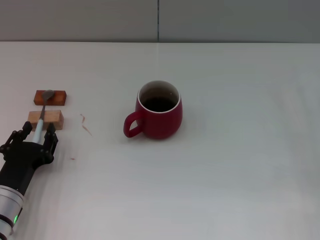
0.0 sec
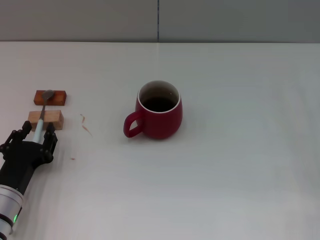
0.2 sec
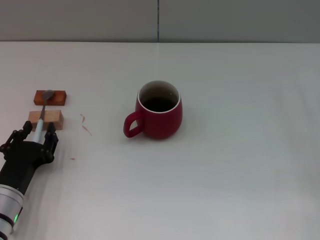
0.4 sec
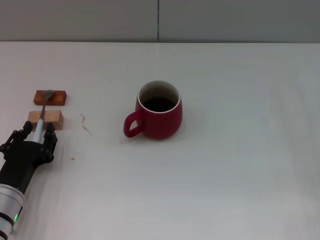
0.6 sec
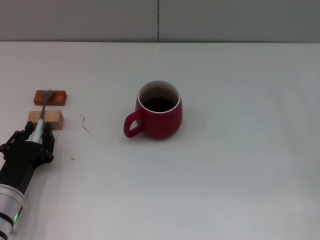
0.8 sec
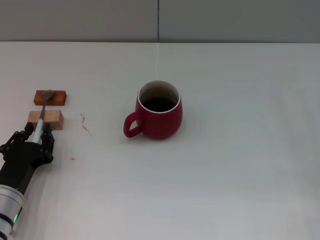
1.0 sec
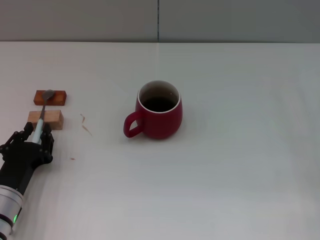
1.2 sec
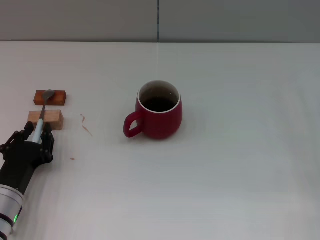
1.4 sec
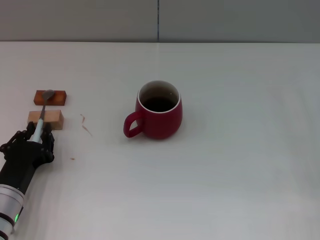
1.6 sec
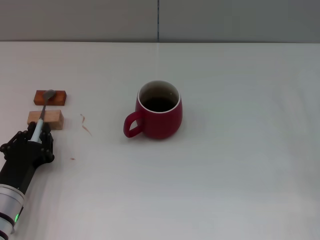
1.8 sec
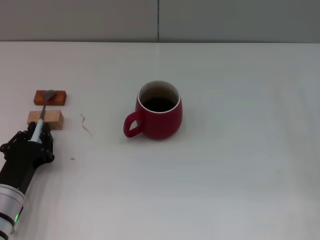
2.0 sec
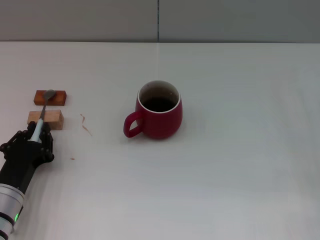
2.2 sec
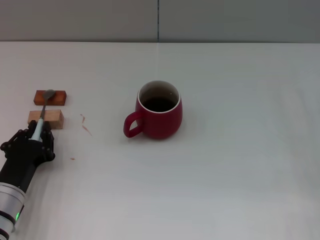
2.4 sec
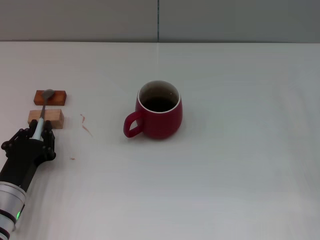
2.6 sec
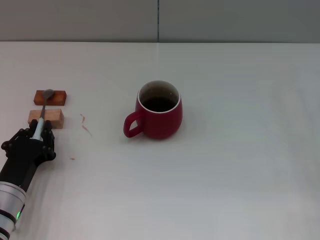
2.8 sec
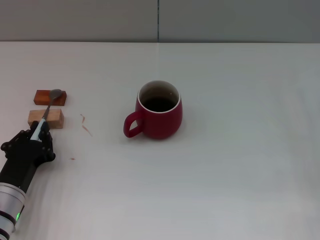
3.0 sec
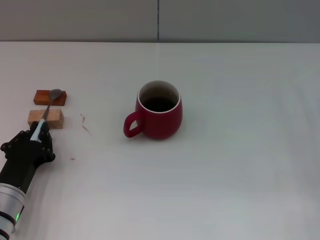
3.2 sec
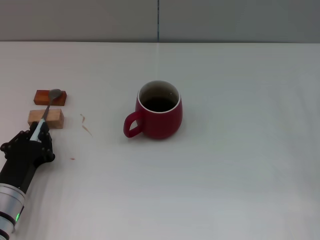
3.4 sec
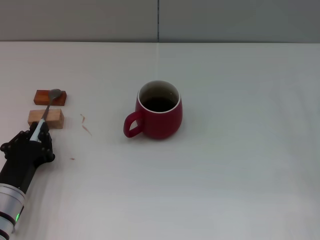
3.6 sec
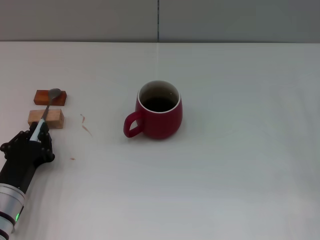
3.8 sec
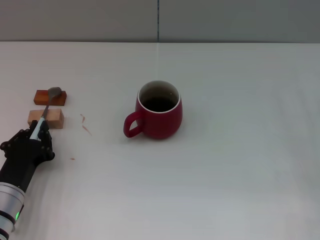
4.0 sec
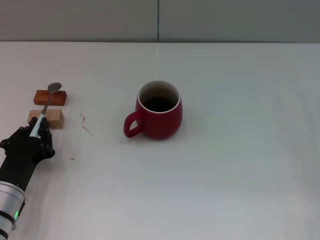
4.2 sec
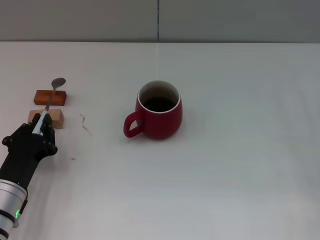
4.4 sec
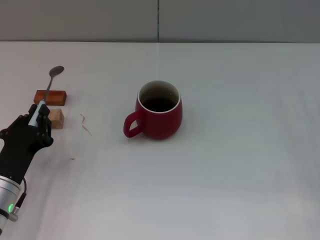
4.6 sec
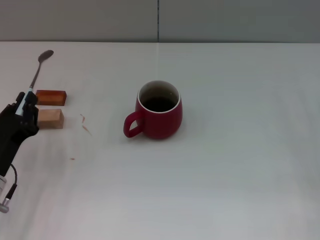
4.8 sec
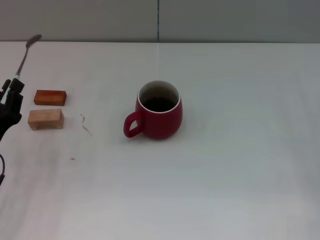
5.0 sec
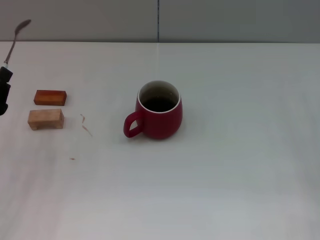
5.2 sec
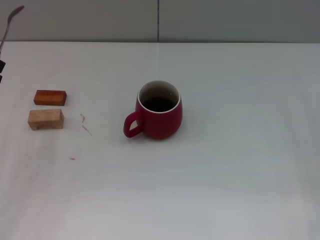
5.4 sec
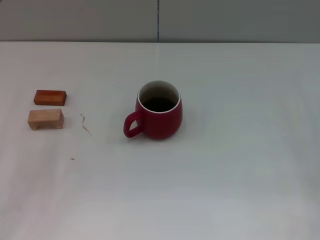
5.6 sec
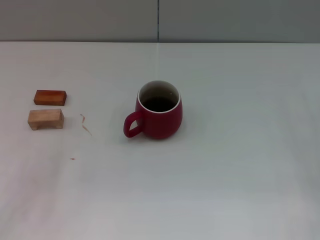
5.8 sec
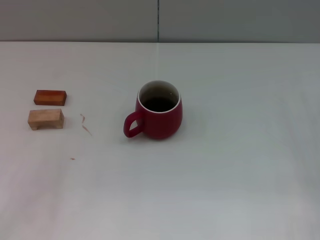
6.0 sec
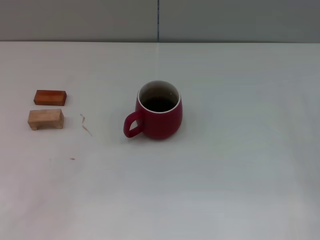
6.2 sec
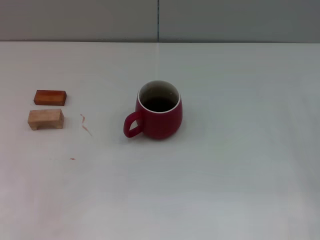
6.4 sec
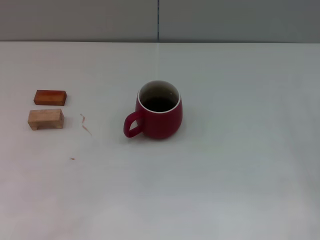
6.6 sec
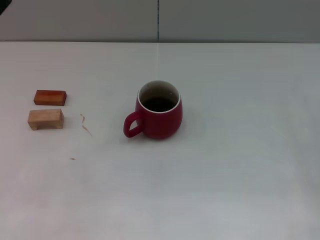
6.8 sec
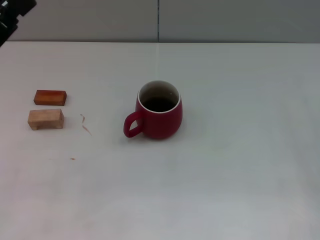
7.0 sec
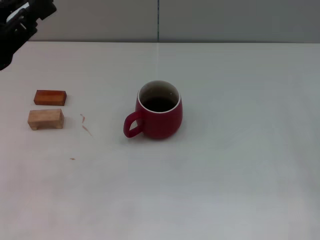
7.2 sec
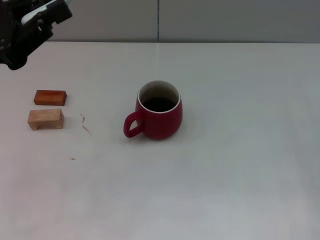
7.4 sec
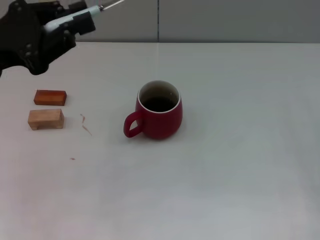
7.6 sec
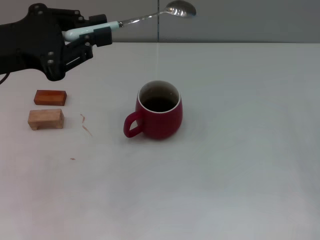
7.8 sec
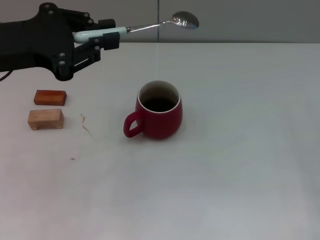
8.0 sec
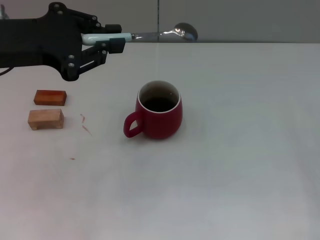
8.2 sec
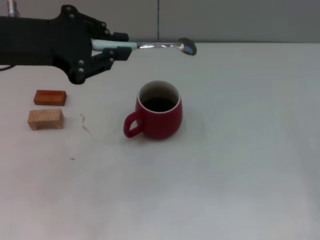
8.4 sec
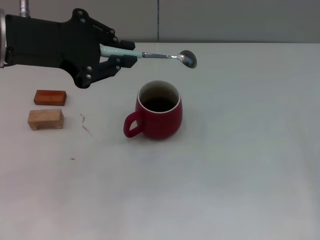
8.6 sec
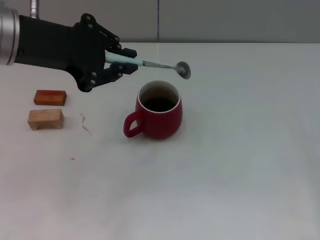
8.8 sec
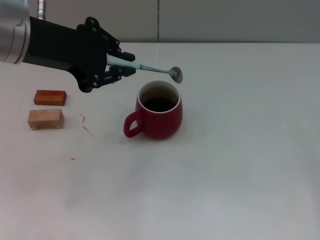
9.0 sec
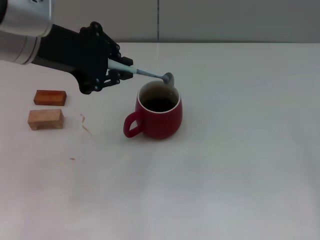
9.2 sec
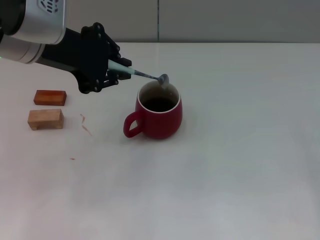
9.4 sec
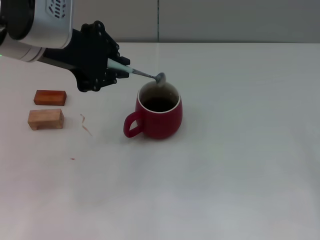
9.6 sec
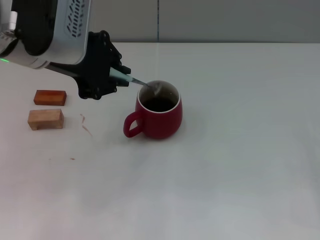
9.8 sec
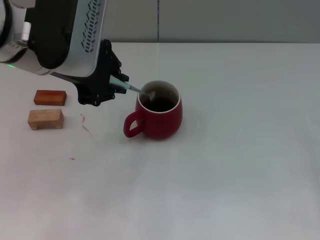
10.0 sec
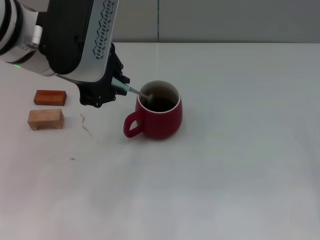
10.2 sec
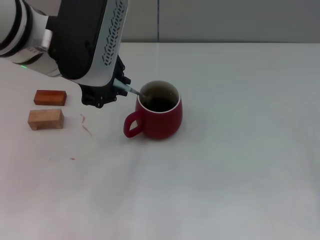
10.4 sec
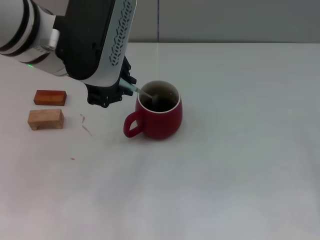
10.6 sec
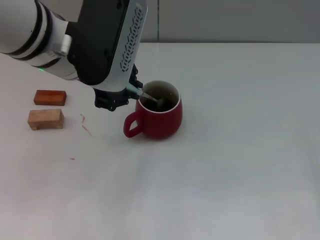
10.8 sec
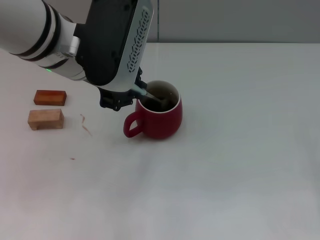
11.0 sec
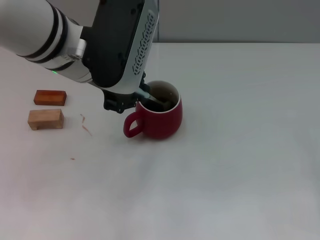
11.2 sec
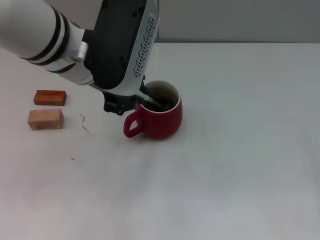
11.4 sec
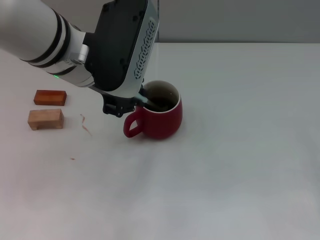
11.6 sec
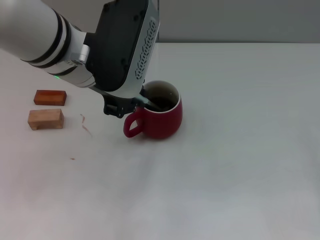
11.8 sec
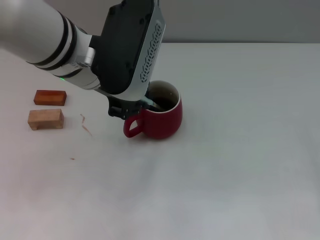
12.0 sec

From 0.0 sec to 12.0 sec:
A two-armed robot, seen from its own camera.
Task of the whole recording: Move the red cup to the center, lift the blue spoon, stir it three times in the cup, and put the spoon into the cup.
Step, from 0.0 sec to 4.6 sec: Pick up the spoon with the left gripper.
From 0.0 sec to 3.0 sec: Both grippers stay put.
From 3.0 sec to 4.4 sec: The grippers make only small movements.
From 4.4 sec to 6.0 sec: The left gripper travels upward and to the left by roughly 10 cm.
From 6.0 sec to 7.6 sec: The left gripper goes roughly 15 cm upward and forward.
From 7.6 sec to 9.0 sec: The left gripper heads to the right, covering some 10 cm.
From 9.0 sec to 10.4 sec: The left gripper travels to the right by approximately 5 cm.
From 10.4 sec to 12.0 sec: The grippers move only a little.

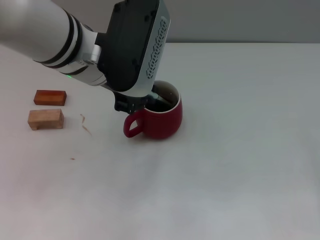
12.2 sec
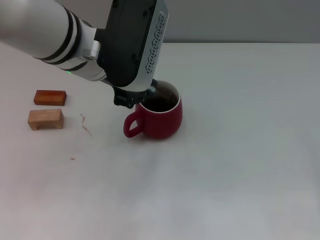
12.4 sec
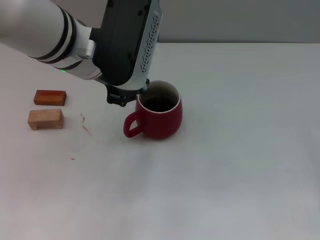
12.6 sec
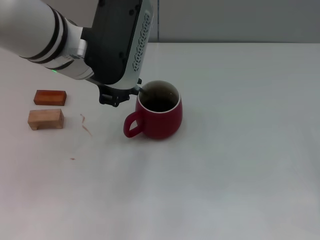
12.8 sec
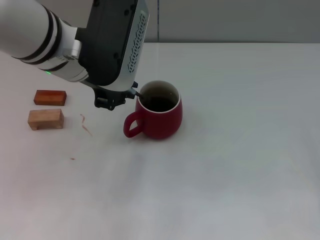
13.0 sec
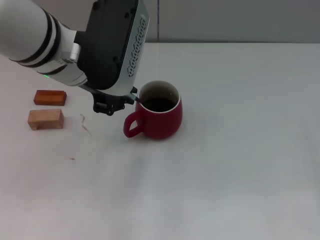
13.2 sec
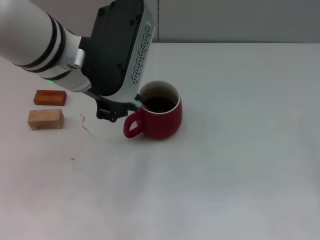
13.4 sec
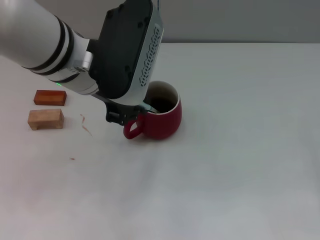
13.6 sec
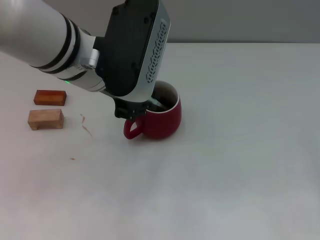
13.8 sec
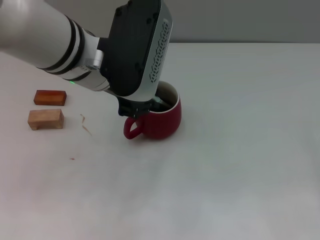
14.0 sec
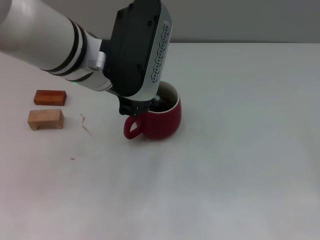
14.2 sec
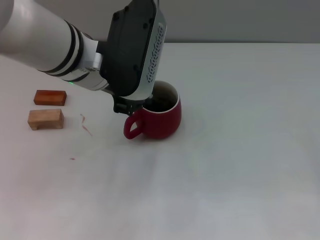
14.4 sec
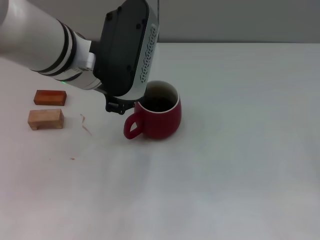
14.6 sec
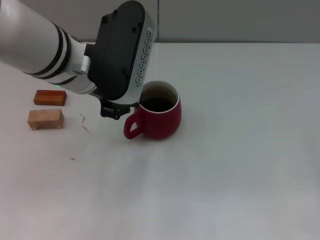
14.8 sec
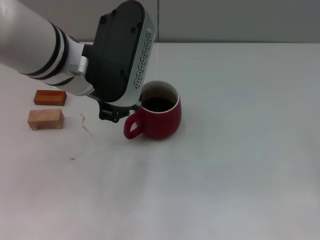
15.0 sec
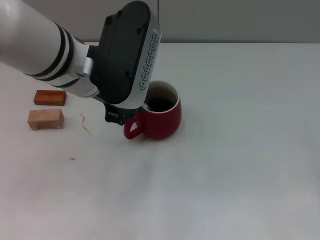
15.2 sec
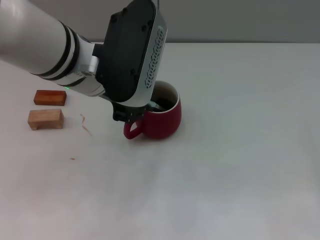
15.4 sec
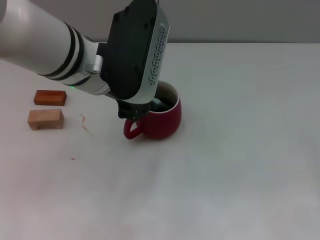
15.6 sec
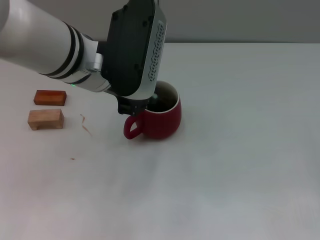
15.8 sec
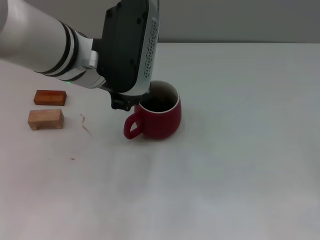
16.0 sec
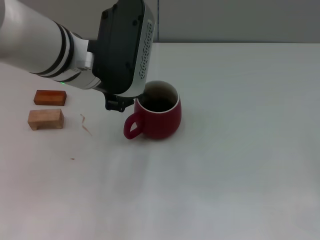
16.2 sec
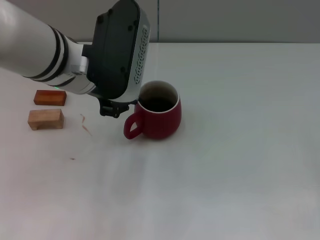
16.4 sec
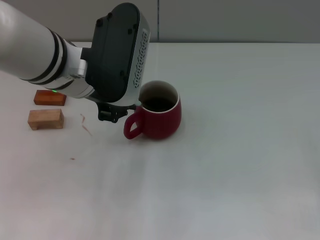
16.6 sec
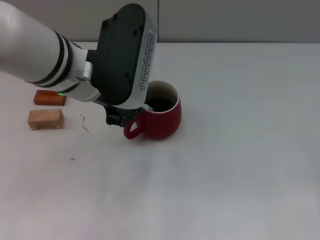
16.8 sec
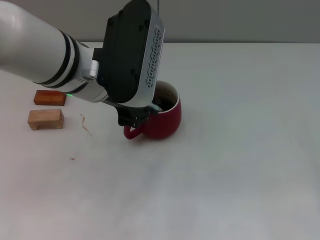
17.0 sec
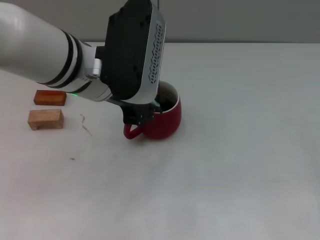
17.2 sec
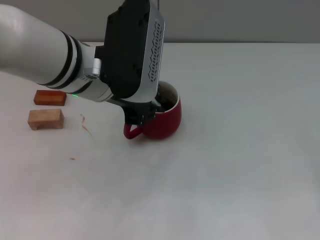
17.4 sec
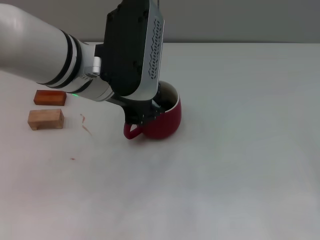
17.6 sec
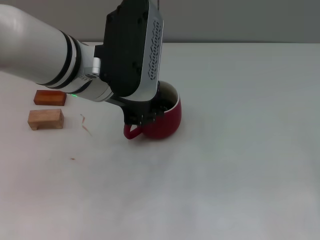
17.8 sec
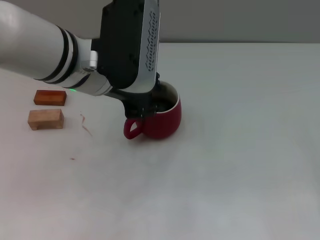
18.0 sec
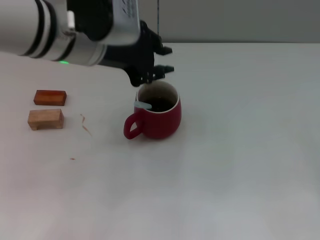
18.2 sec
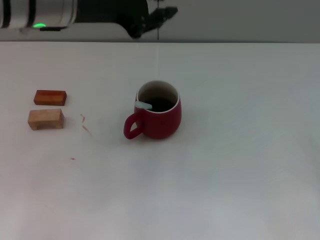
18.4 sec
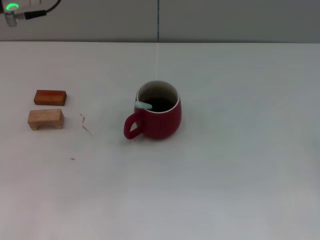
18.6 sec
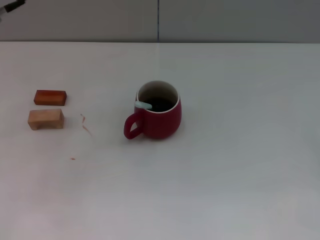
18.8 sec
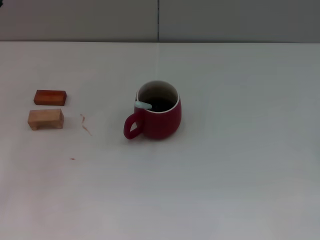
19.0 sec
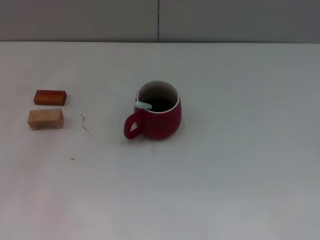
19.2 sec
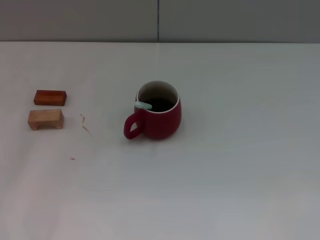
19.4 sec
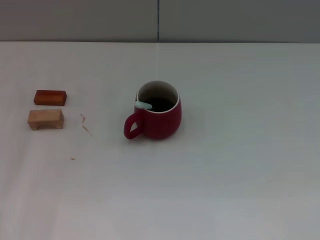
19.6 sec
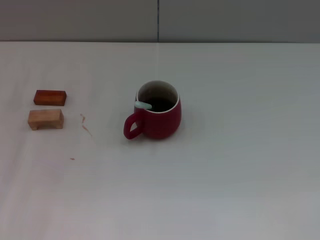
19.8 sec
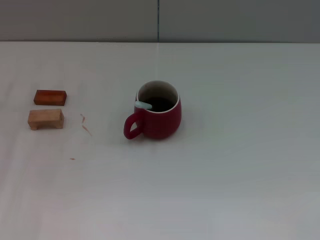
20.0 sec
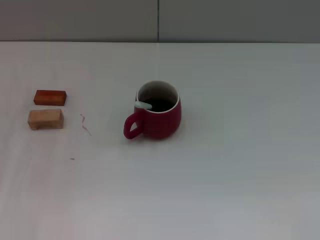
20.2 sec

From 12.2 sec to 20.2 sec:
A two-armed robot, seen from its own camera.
Task of the whole recording: Move the red cup to the center, lift the blue spoon, stir it three times in the cup, and put the spoon into the cup.
Step, from 12.2 sec to 18.2 sec: Stir the coffee in the cup with the left gripper.
From 12.2 sec to 17.0 sec: The grippers make only small movements.
From 17.0 sec to 18.6 sec: The left gripper heads to the left, covering about 10 cm.

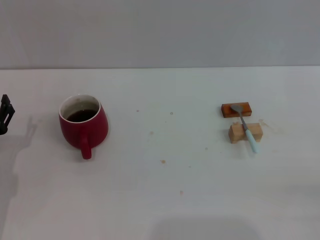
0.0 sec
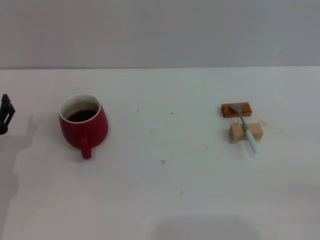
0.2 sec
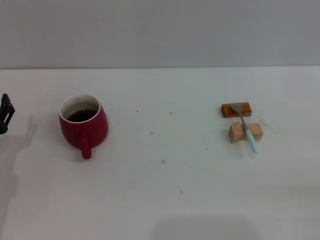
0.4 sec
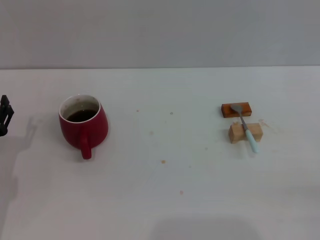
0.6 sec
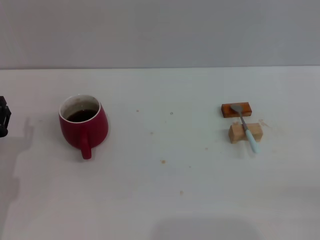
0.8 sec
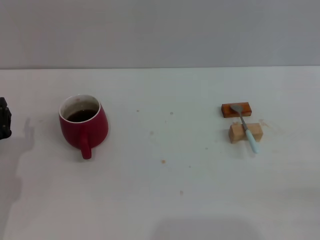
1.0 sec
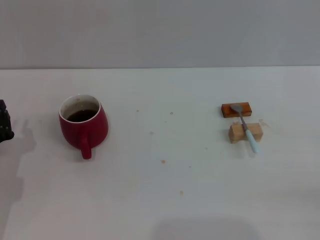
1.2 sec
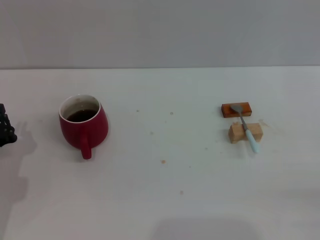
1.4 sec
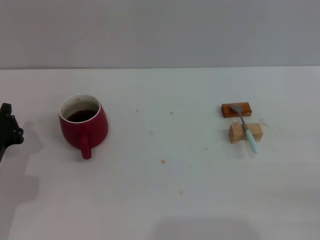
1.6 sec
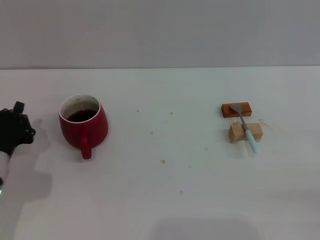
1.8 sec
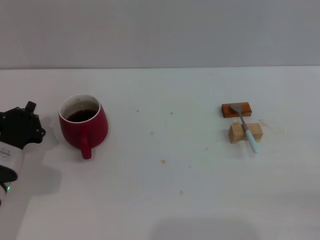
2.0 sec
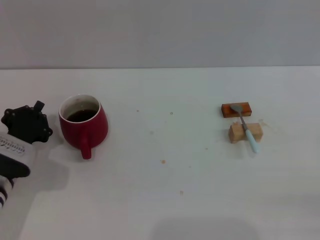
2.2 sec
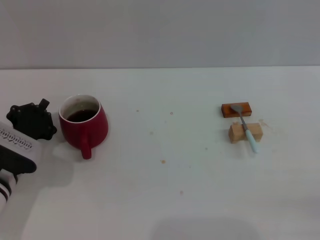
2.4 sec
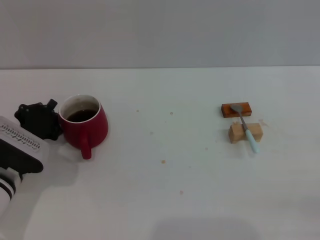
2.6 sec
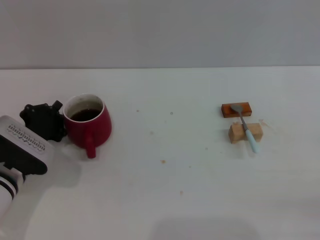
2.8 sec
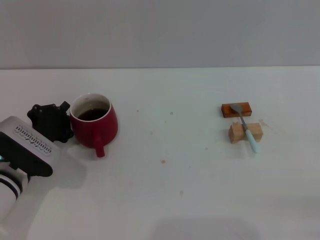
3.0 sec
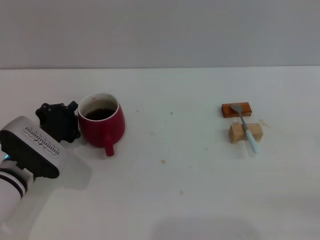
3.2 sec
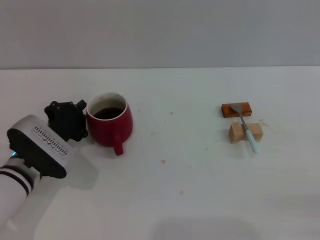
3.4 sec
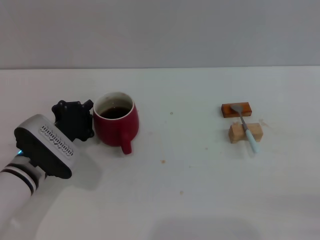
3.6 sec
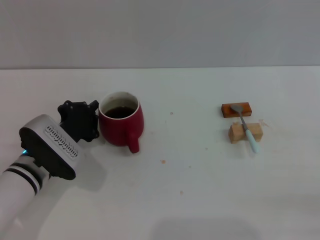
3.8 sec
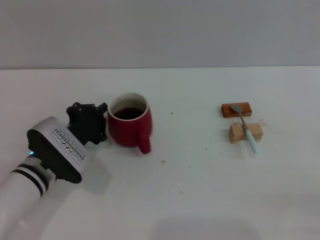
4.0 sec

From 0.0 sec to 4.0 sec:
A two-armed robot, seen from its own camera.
Task of the whole recording: Move the red cup to the center, lift the blue spoon, stir it three times in the cup, and put the spoon into the cup.
From 0.0 sec to 1.4 sec: The left gripper closes its fingers.
From 1.4 sec to 2.6 sec: The left gripper ends up some 5 cm from where it was.
From 2.6 sec to 4.0 sec: The left gripper shifts approximately 5 cm to the right.
